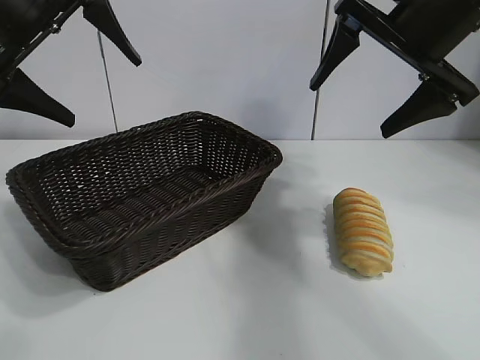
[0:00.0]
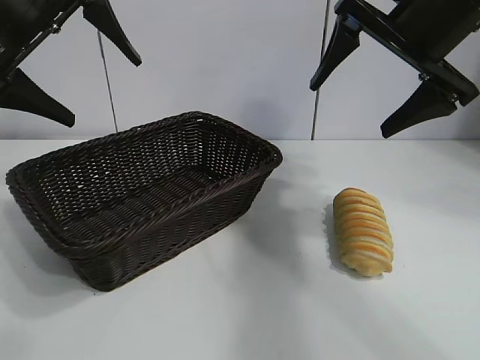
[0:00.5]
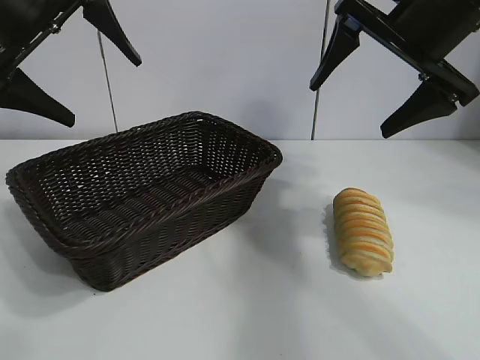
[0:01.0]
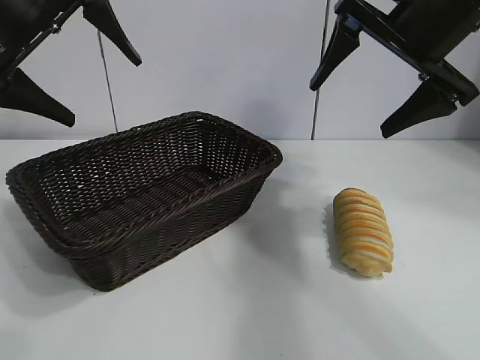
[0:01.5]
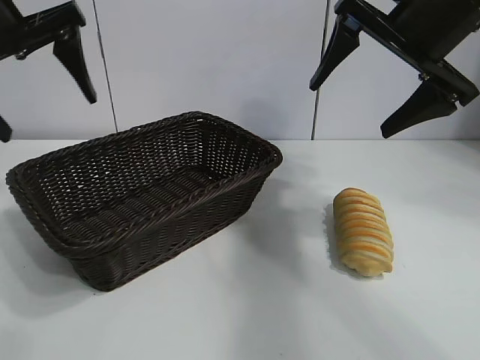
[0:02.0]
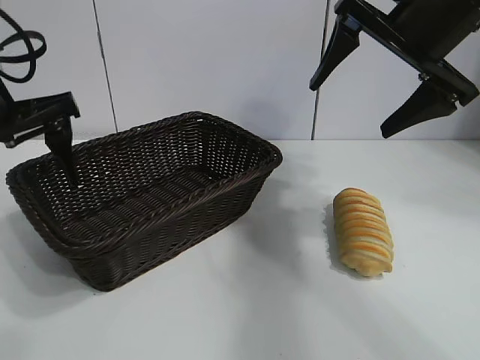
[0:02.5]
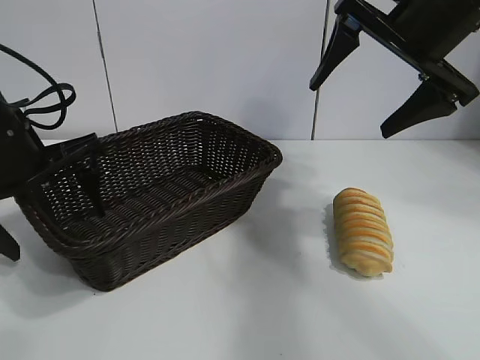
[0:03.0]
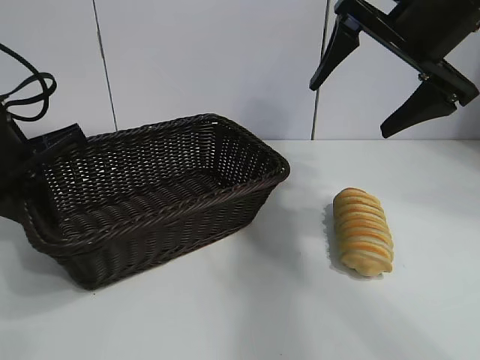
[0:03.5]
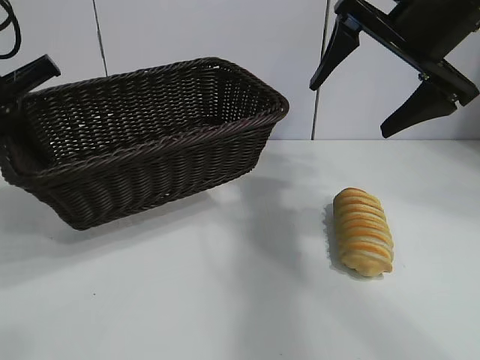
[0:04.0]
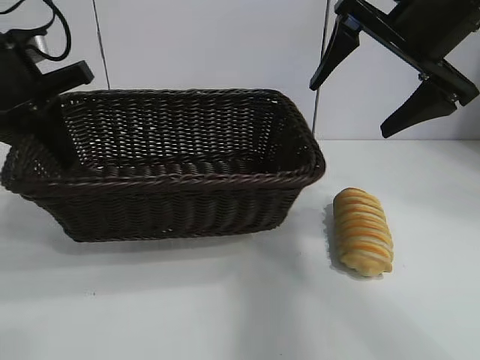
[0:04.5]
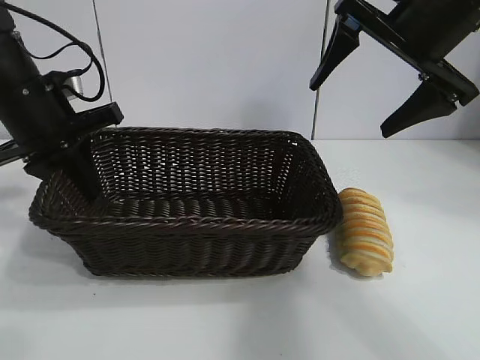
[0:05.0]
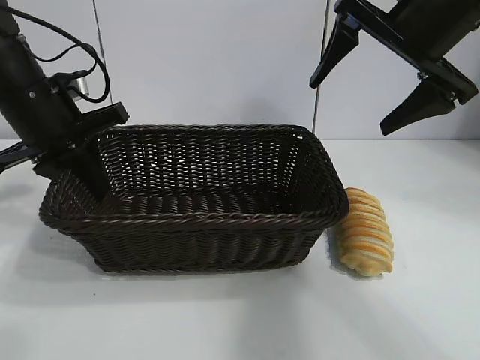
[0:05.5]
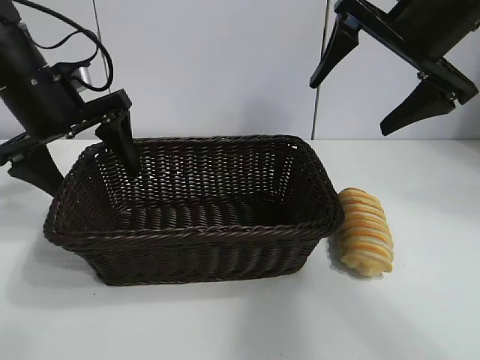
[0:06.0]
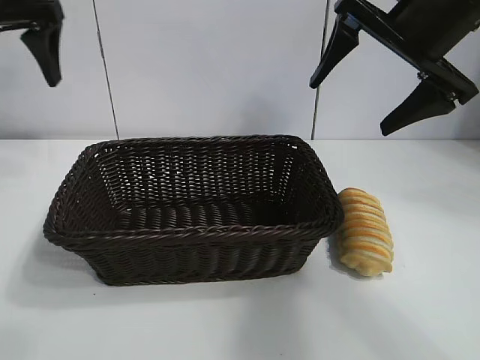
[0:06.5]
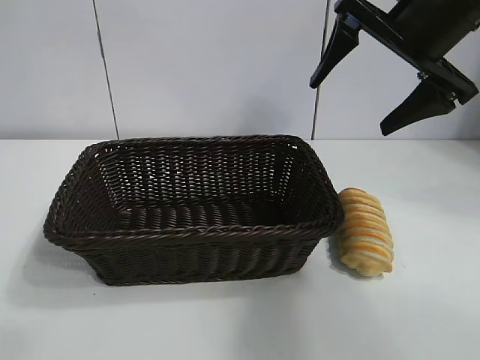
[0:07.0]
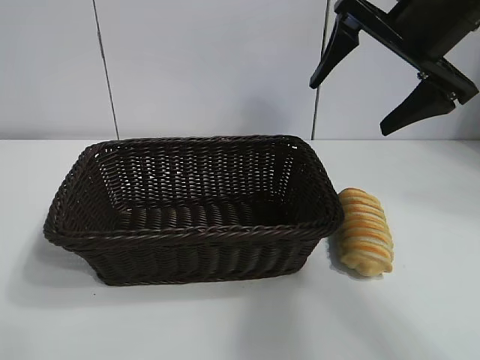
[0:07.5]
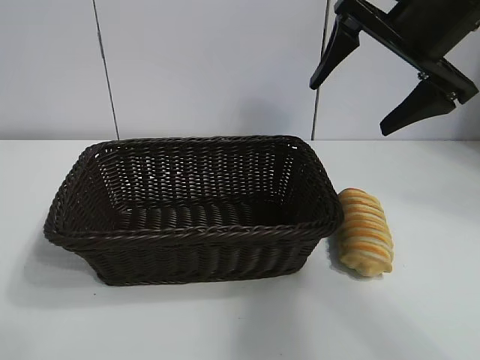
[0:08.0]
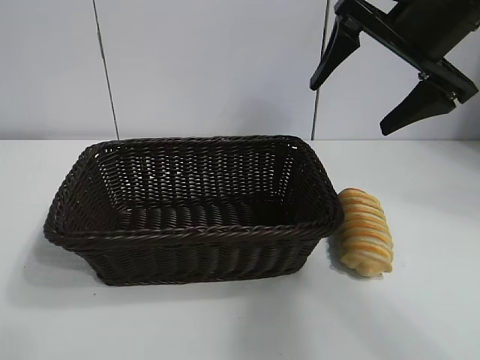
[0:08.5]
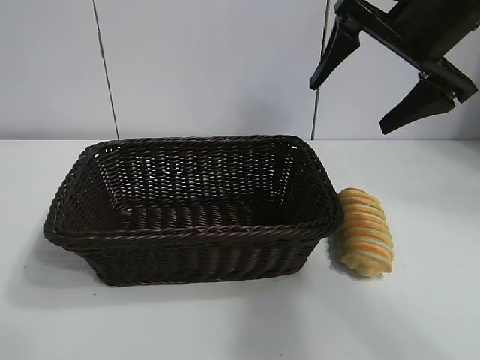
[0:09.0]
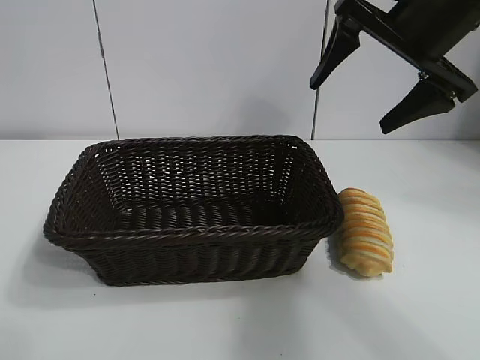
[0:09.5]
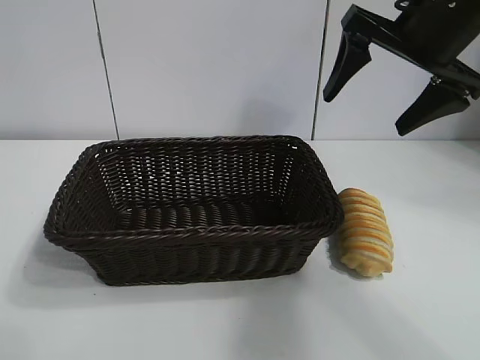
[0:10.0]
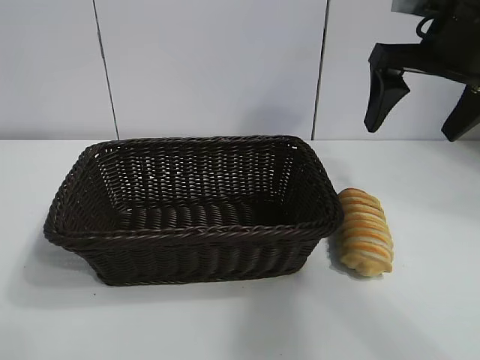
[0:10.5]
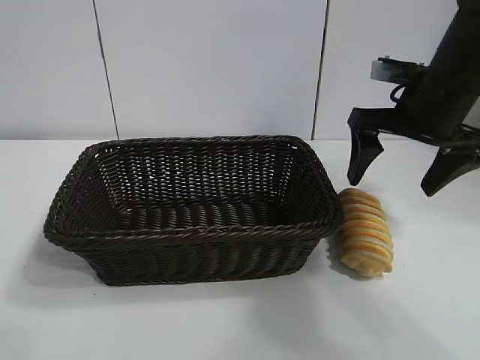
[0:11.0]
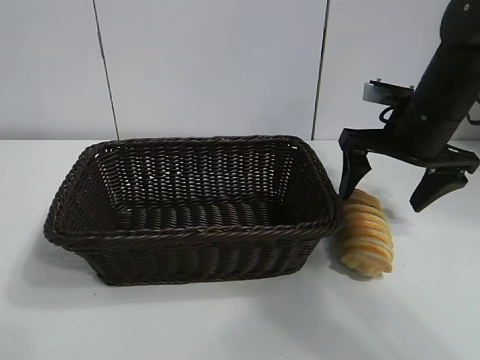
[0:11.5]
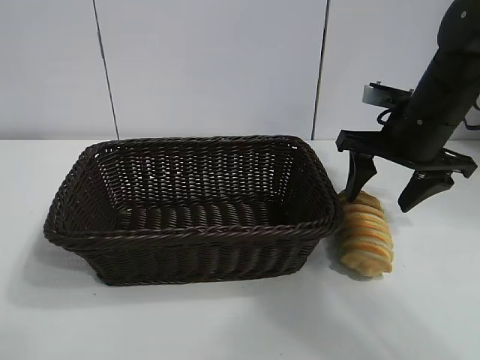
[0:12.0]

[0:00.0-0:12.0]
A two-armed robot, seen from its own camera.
Task of the whole recording: pick up the long bread and put it into the basket.
Step, 0:02.0 to 0:03.0: Grasp the basket with the left gripper.
Step, 0:03.5 to 0:05.5: Place the basket in the center of the table with the left gripper.

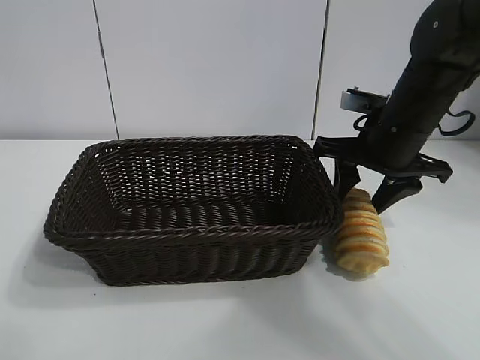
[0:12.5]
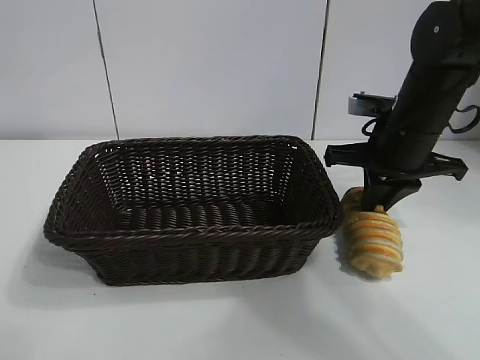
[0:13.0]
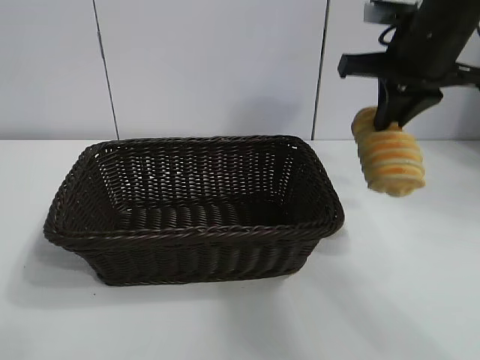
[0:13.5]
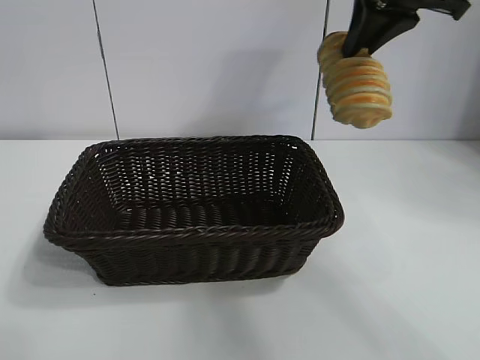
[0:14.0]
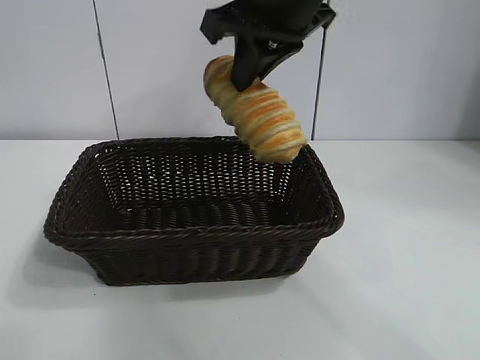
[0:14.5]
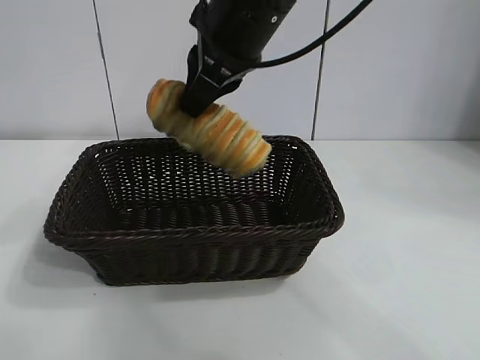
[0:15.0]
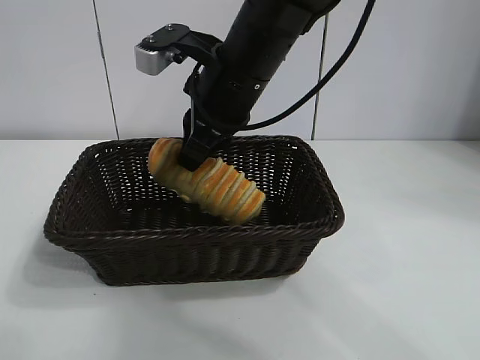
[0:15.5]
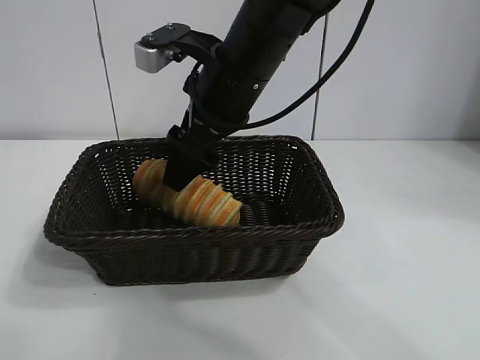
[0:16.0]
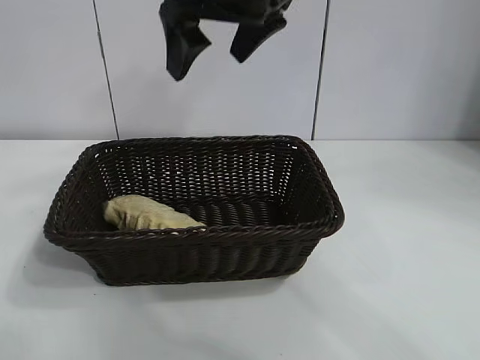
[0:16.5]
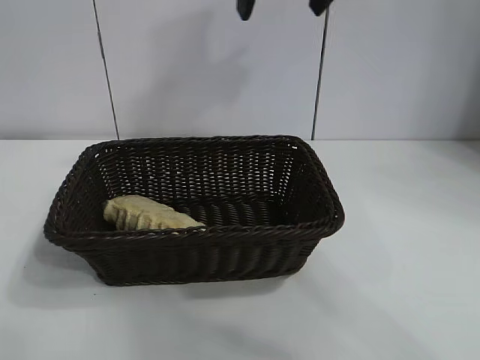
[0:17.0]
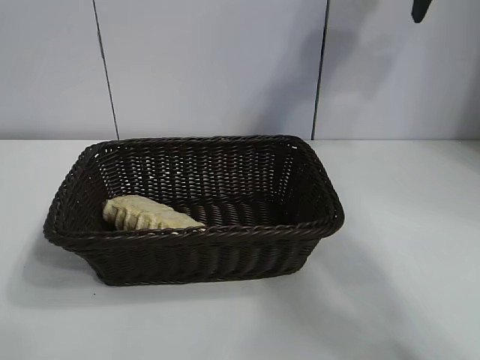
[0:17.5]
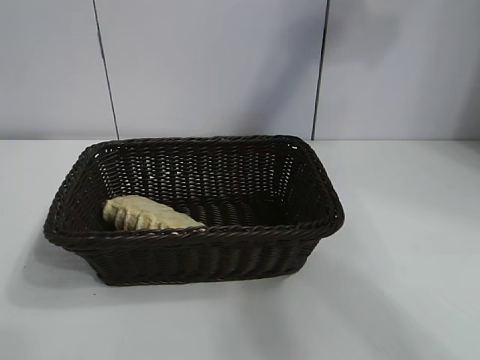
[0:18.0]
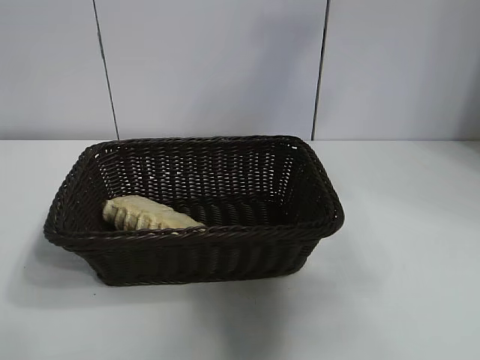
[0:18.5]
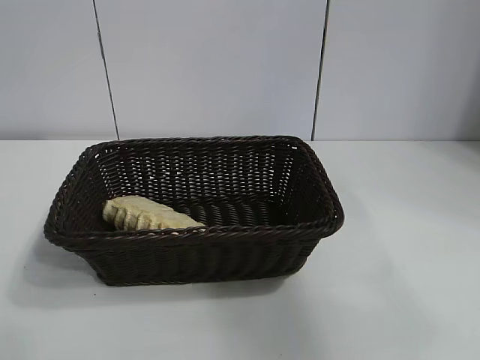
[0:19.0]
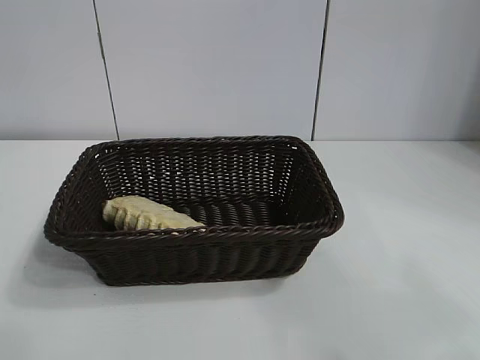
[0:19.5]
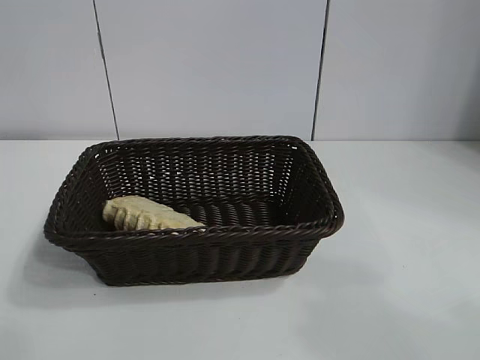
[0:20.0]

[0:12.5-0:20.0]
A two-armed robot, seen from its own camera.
Task of the whole recording: pick up the long bread and put it into the basket.
Step, 0:13.5 to 0:16.0: Place the long bread in the basket with right gripper.
